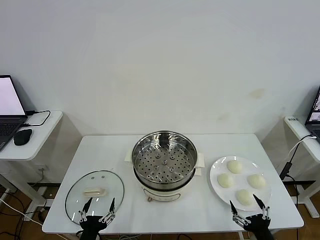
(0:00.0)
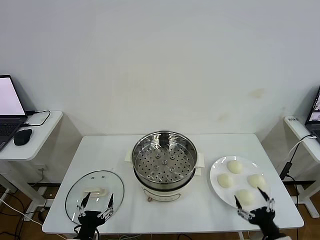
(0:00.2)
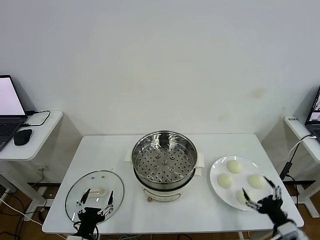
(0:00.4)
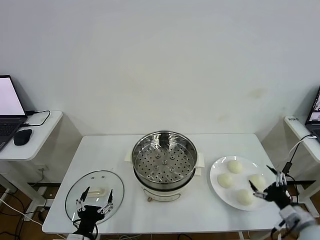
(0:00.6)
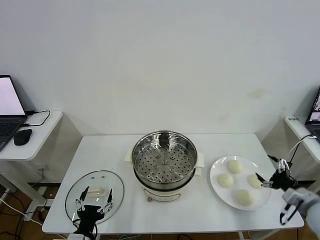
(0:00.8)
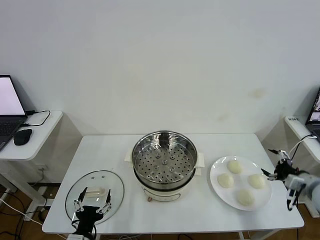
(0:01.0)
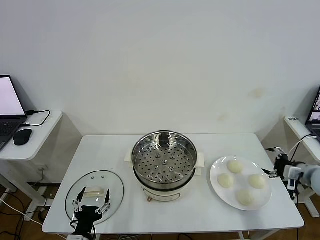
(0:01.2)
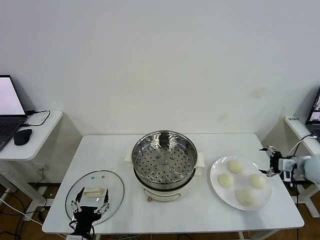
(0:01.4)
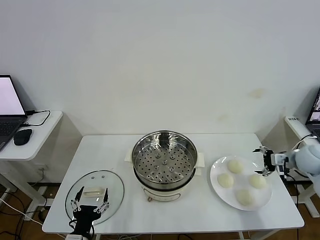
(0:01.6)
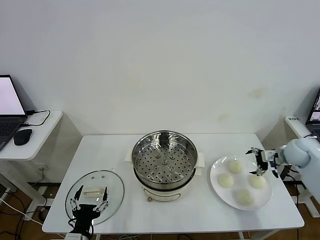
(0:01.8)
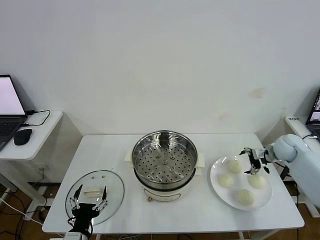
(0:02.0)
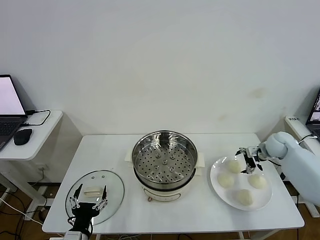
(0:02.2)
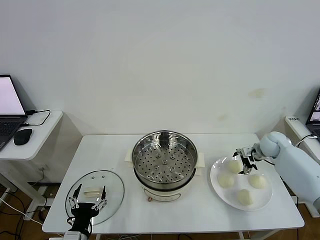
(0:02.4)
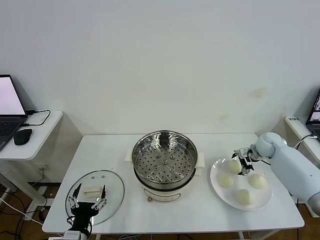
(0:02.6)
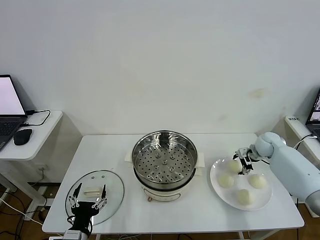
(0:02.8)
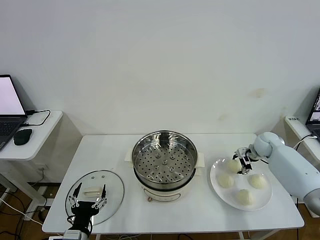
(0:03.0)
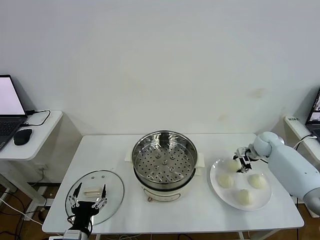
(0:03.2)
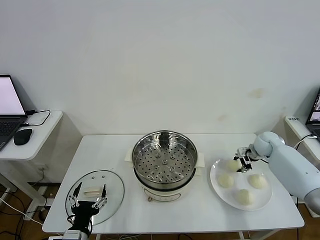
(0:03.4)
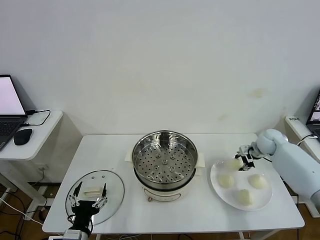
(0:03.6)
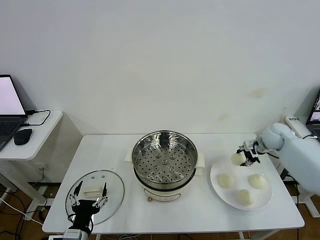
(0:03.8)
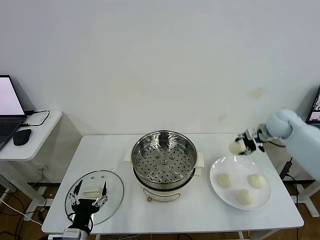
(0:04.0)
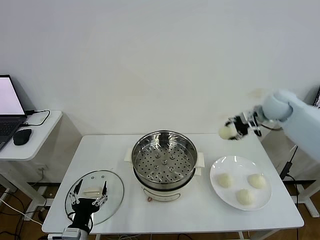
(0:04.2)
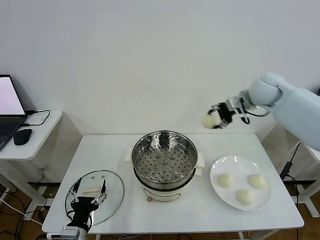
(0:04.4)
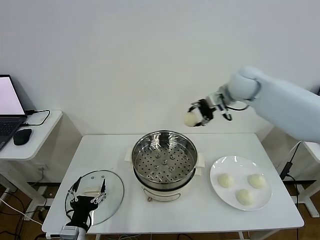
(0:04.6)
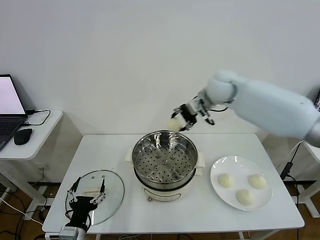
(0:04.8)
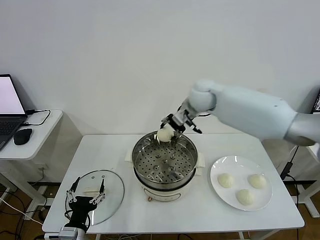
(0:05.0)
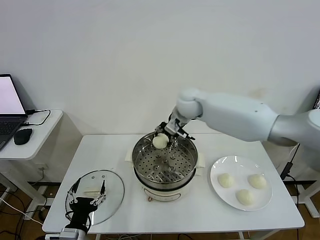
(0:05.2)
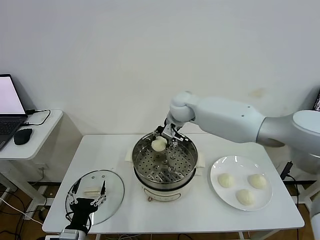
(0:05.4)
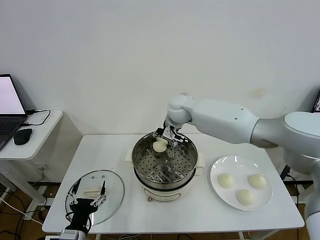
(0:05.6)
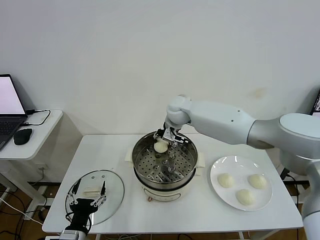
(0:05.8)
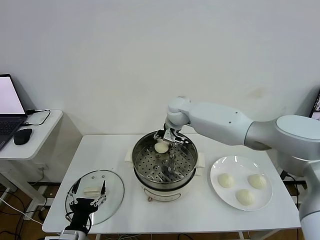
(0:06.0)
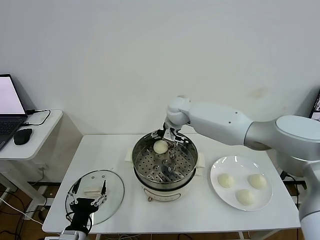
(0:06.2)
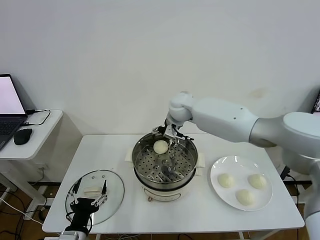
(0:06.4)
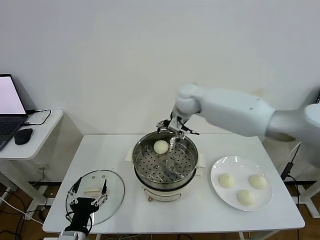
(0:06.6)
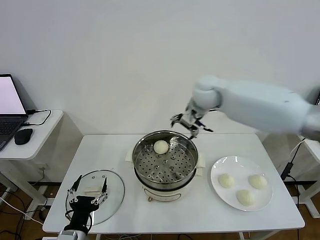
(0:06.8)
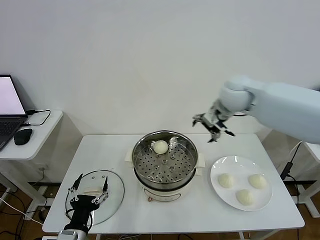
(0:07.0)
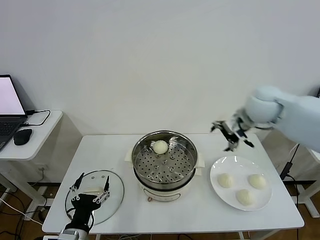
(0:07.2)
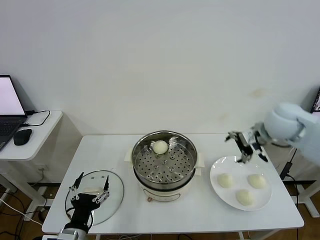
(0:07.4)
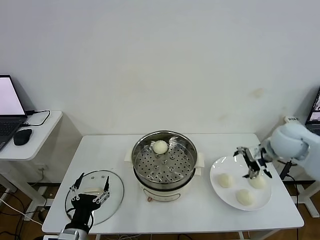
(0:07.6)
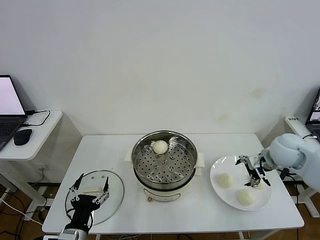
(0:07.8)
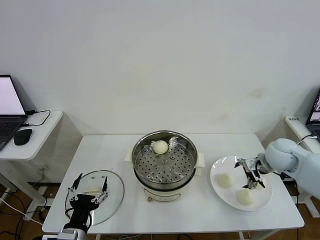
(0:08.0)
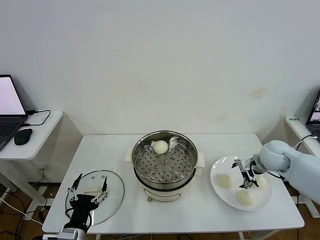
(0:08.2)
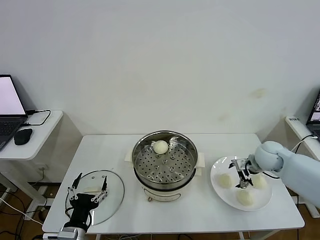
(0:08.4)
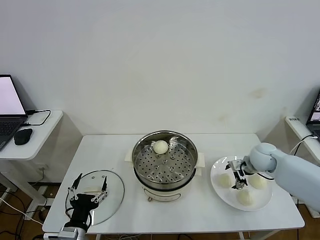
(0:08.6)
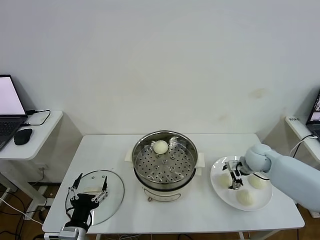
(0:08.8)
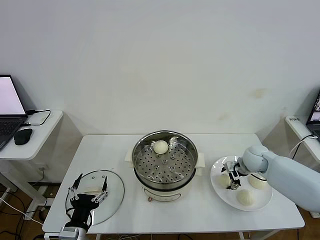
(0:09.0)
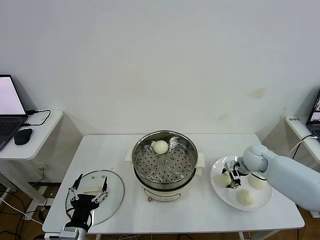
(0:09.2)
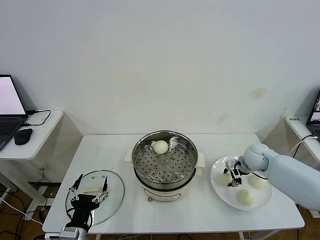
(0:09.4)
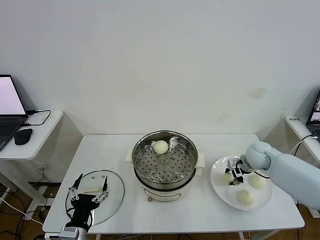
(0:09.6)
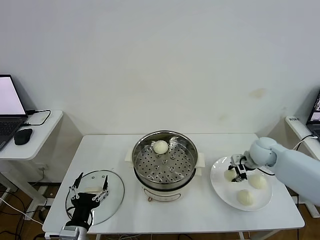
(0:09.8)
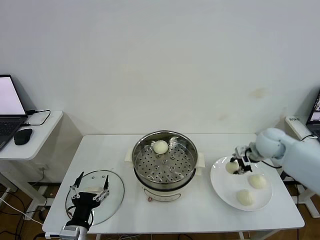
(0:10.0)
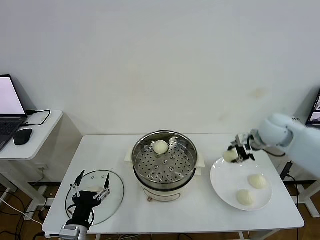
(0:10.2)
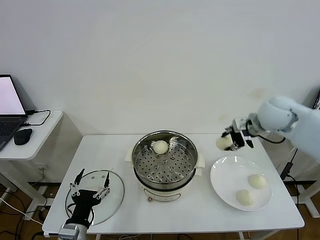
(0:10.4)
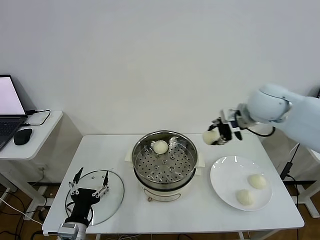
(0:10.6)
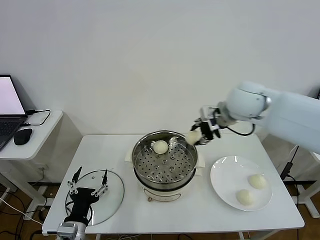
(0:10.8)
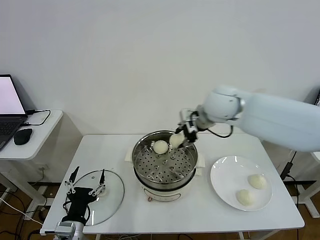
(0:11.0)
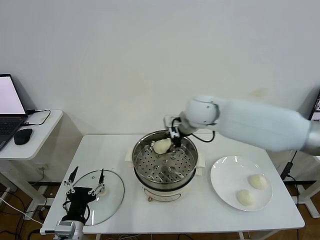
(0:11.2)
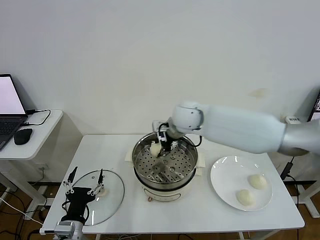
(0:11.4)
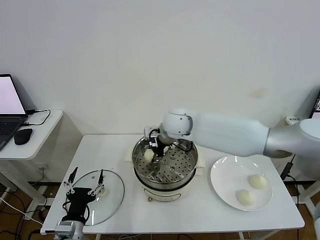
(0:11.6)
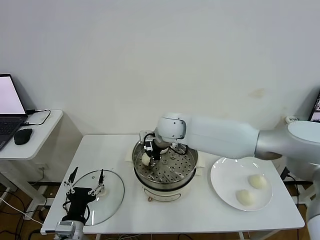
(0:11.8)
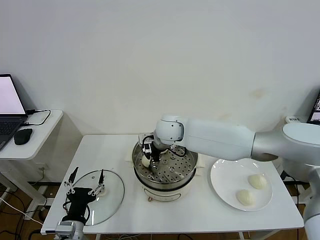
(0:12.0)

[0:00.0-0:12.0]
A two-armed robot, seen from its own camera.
Step, 0:00.0 to 0:03.2: Grasp the baozi in the plate with right gripper.
Step, 0:03.4 to 0:06.2: Place the baozi on the steamer with right gripper.
Step, 0:06.4 to 0:09.2: Grasp the baozi in the plate with right gripper.
0:01.6 to 0:03.0: The right gripper heads forward, to the left and downward, covering approximately 15 cm, and closes its fingers.
0:03.0 to 0:04.4: The right gripper moves upward and to the left, approximately 30 cm.
0:04.4 to 0:06.0: The right gripper goes some 25 cm to the left and downward, and opens up.
0:06.0 to 0:07.6: The right gripper moves to the right and backward, approximately 35 cm.
0:07.6 to 0:09.0: The right gripper heads downward and forward, covering some 15 cm.
0:09.0 to 0:10.4: The right gripper travels upward by roughly 25 cm, and closes.
0:10.4 to 0:12.0: The right gripper goes about 30 cm to the left, and opens its fingers.

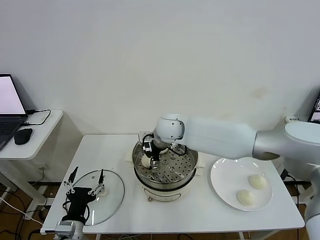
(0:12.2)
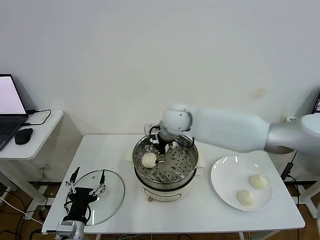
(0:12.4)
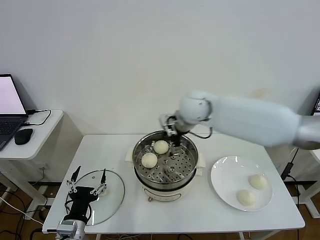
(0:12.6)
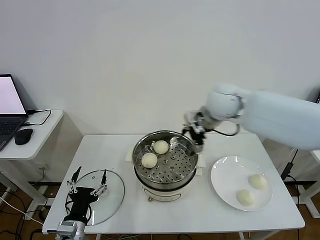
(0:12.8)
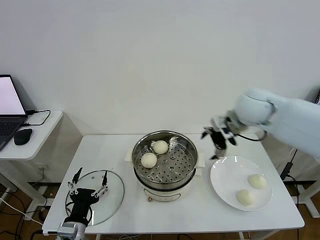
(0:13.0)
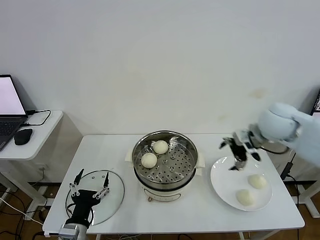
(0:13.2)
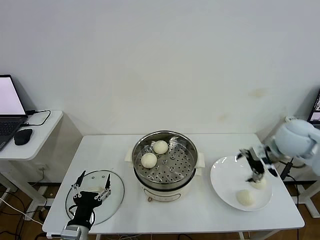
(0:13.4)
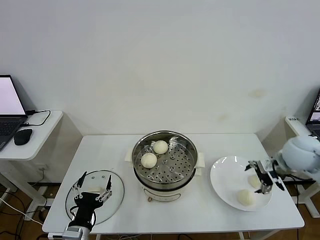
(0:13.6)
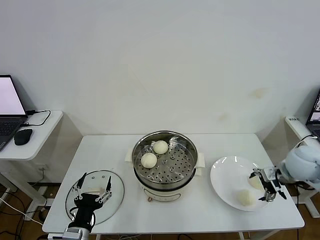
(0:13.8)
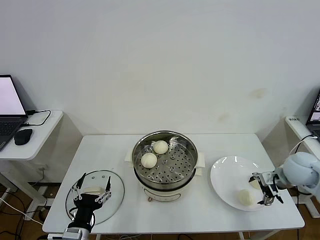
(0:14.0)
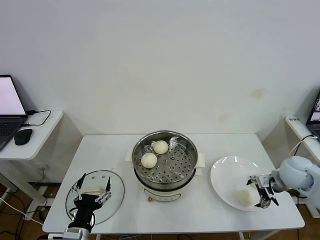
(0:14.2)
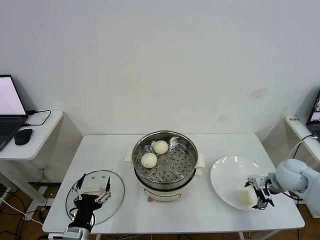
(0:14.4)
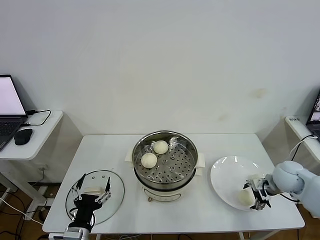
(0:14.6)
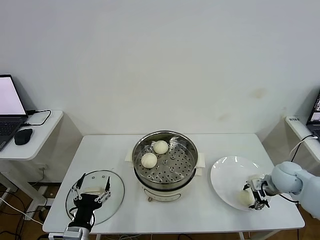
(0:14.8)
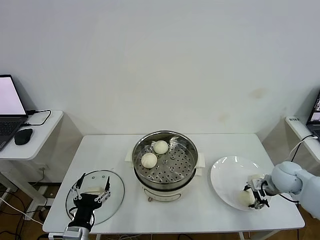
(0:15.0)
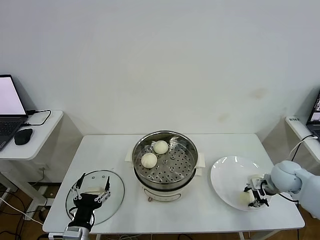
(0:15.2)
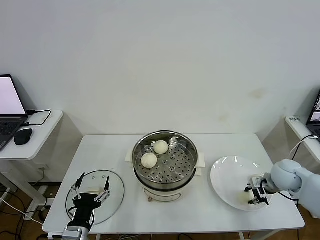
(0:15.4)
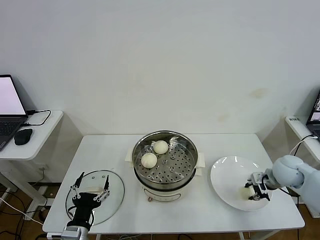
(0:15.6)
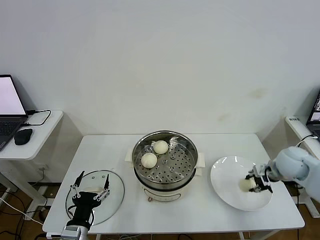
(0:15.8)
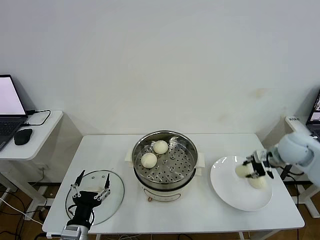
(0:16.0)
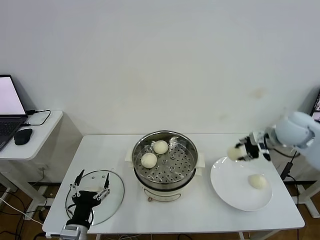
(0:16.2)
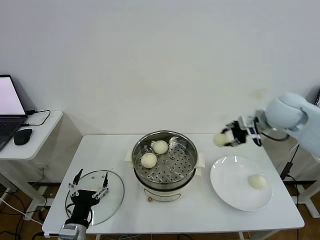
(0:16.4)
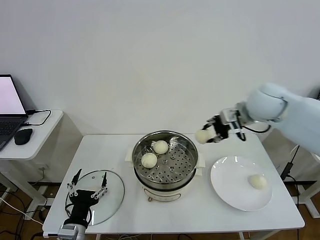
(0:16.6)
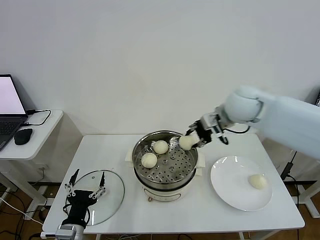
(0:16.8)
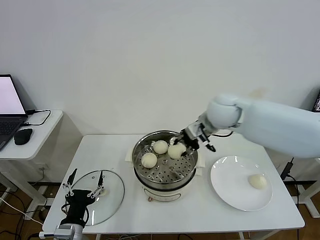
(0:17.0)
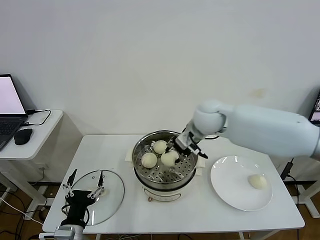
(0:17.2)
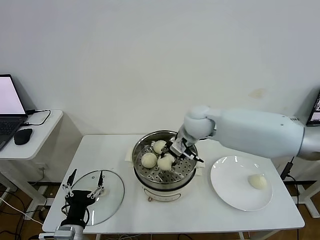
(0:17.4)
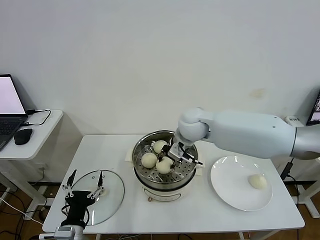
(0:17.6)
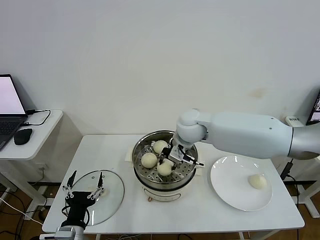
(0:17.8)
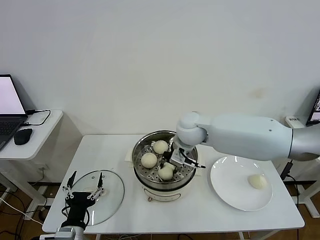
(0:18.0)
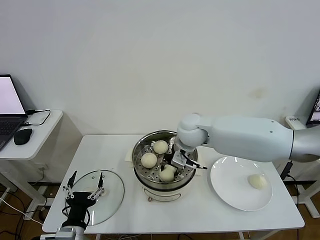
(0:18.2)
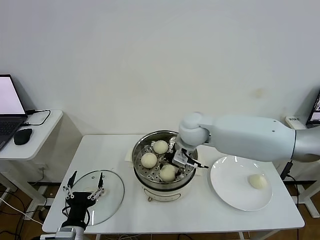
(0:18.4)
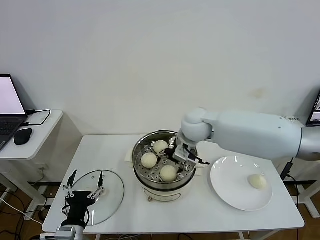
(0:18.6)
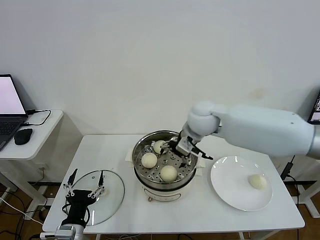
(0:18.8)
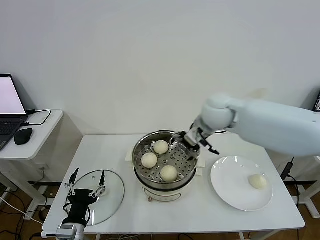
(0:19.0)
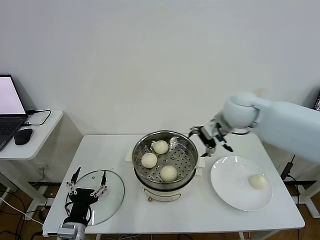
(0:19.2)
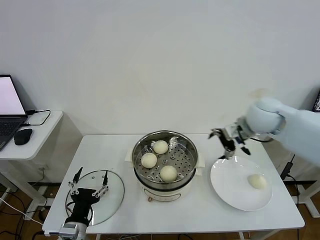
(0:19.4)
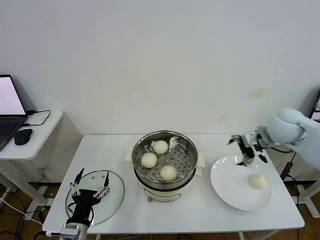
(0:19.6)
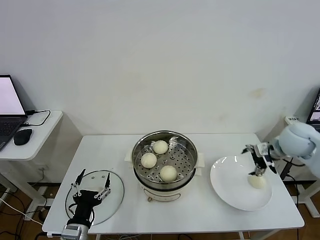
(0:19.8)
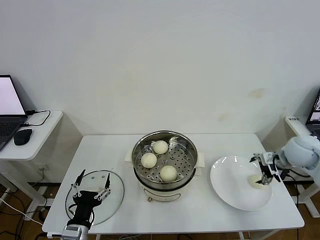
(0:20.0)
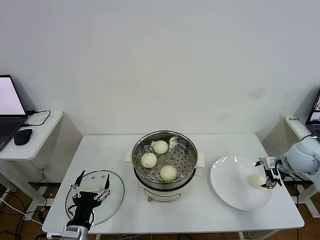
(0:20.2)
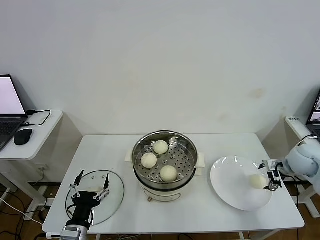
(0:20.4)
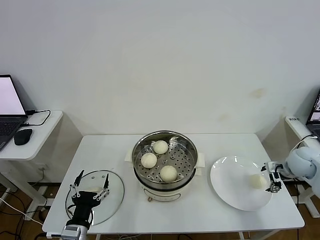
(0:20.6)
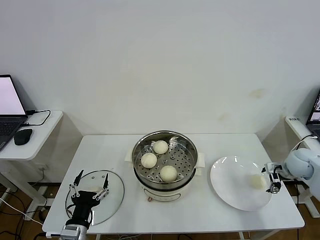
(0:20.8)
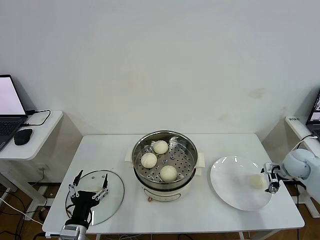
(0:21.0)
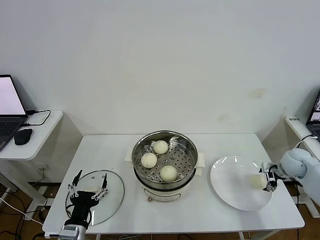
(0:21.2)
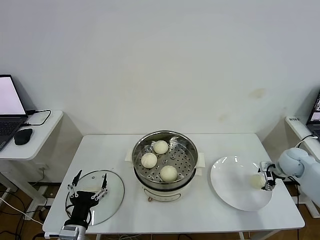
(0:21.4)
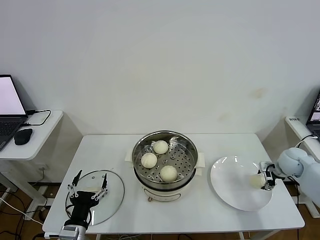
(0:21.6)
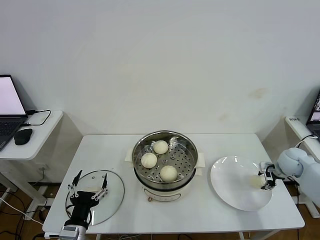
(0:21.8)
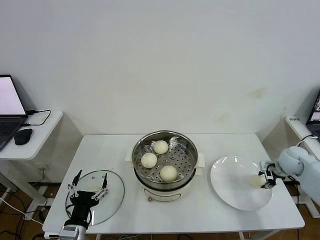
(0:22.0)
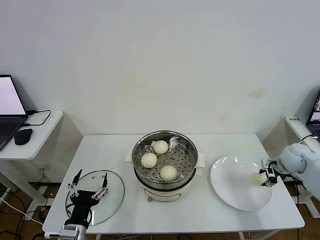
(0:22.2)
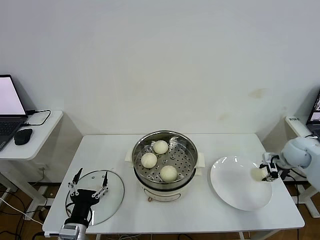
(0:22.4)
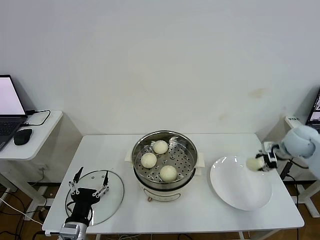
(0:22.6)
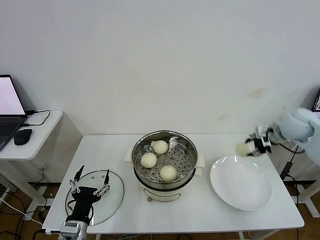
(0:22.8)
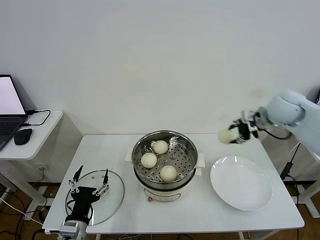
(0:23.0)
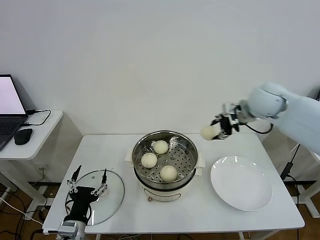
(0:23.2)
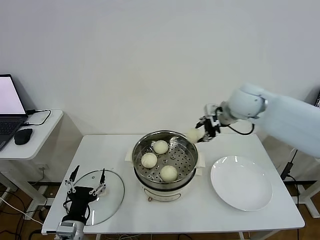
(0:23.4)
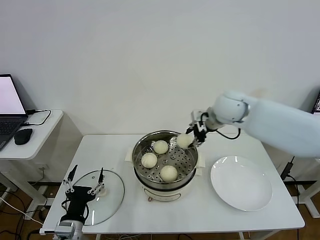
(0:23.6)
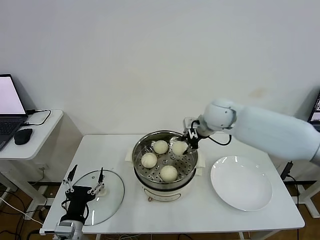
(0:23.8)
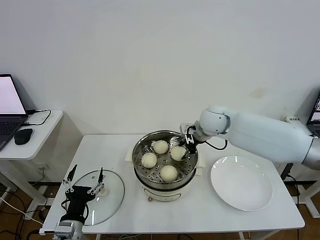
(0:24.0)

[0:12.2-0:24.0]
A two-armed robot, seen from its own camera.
Step, 0:12.4 to 0:15.4: Grasp the baozi in the plate with right gripper.
Step, 0:15.6 to 0:18.4: Place the baozi on the steamer with right gripper.
Step, 0:18.8 to 0:22.0: Grasp the baozi in the plate with right gripper.
0:12.2 to 0:13.6: The right gripper goes some 35 cm to the right.
0:13.6 to 0:15.2: The right gripper shifts some 10 cm downward, and closes.
0:15.2 to 0:16.6: The right gripper is displaced upward and to the left by approximately 30 cm.
0:16.6 to 0:18.2: The right gripper shifts approximately 20 cm to the left and downward.
0:18.2 to 0:19.6: The right gripper is displaced to the right by approximately 25 cm, and opens its fingers.
0:19.6 to 0:21.0: The right gripper shifts roughly 20 cm downward and to the right.
0:21.0 to 0:22.6: The right gripper shifts some 10 cm upward, and closes its fingers.
0:22.6 to 0:24.0: The right gripper travels to the left by roughly 30 cm.
